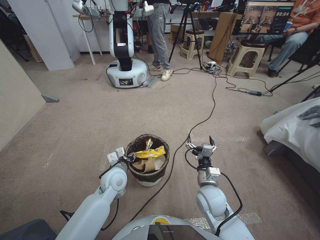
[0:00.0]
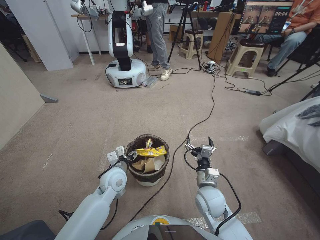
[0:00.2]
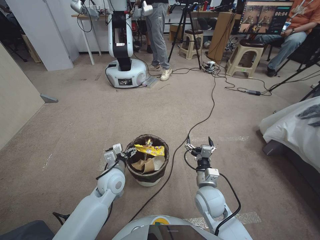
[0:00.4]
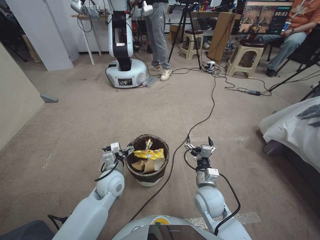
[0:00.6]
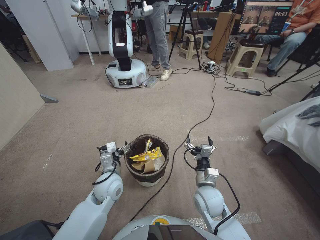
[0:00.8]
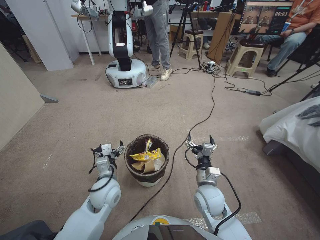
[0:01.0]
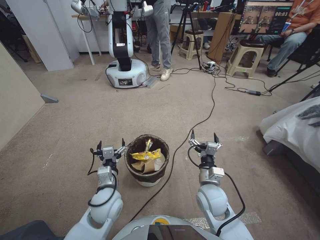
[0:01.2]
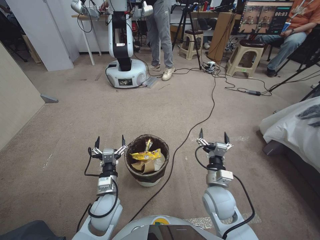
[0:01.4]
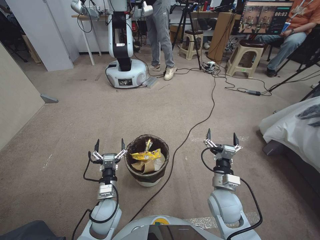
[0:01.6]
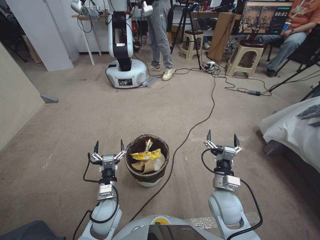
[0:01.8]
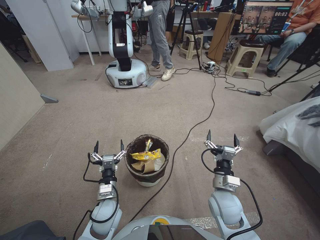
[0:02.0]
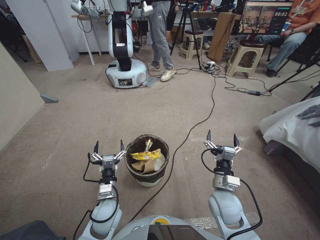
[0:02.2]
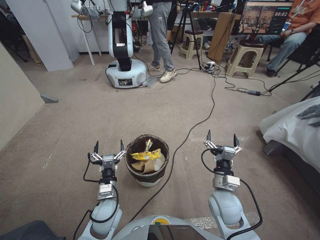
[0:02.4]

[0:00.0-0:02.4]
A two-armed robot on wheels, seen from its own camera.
Task of the whole recording: Pick up the trash bin, then pick up the garbage from the floor and place it into the trash bin.
0:00.0 to 0:01.2: The left gripper goes approximately 5 cm backward, and opens up.
0:01.2 to 0:02.4: The left gripper travels downward by approximately 5 cm.

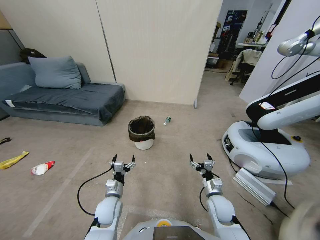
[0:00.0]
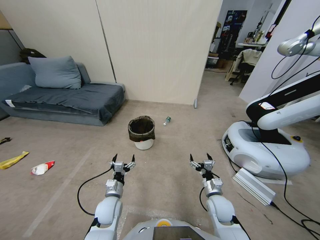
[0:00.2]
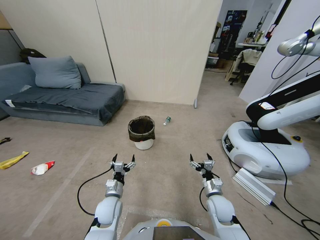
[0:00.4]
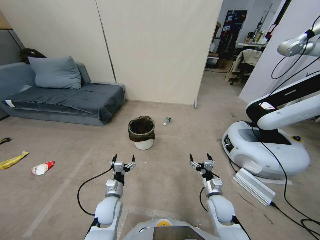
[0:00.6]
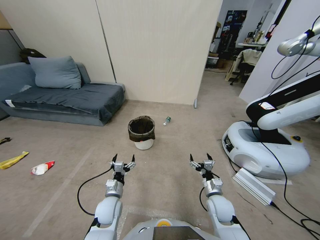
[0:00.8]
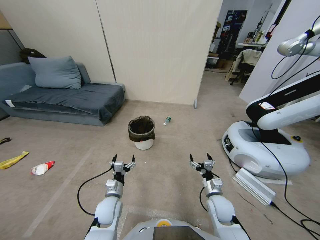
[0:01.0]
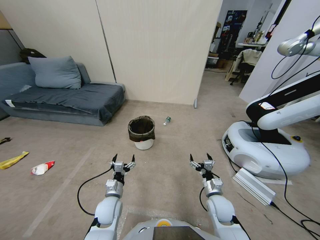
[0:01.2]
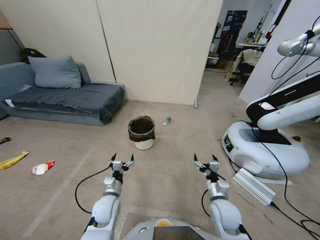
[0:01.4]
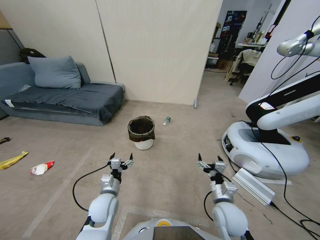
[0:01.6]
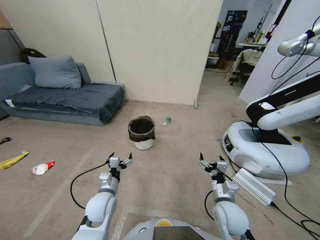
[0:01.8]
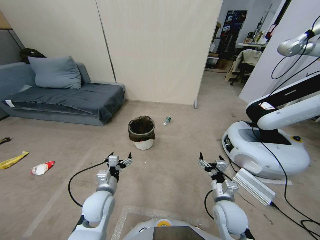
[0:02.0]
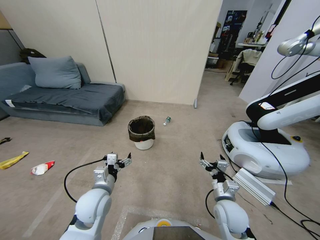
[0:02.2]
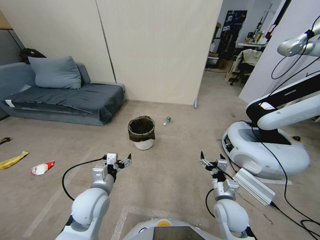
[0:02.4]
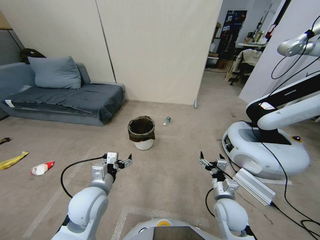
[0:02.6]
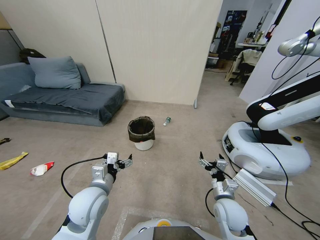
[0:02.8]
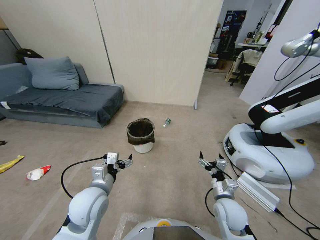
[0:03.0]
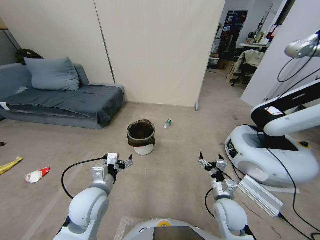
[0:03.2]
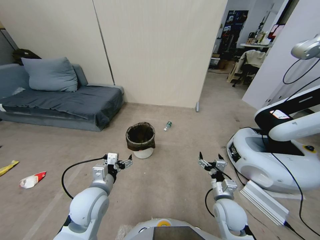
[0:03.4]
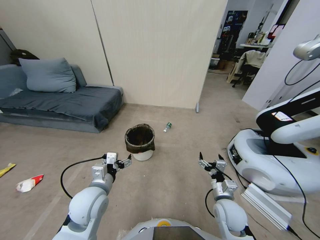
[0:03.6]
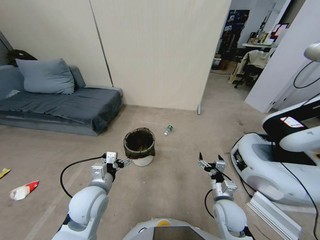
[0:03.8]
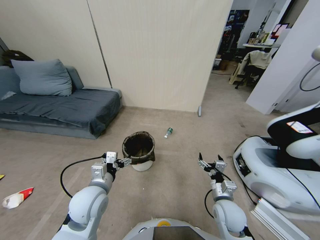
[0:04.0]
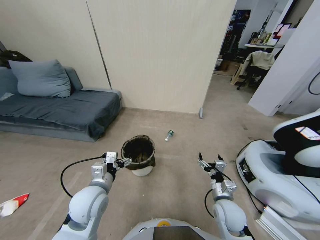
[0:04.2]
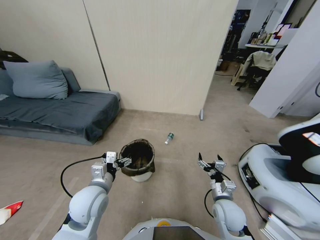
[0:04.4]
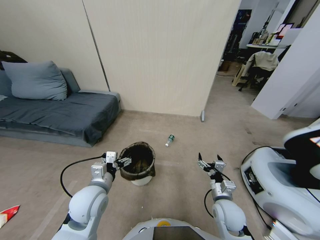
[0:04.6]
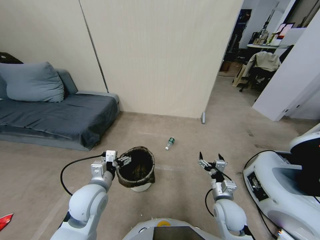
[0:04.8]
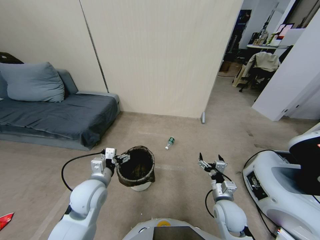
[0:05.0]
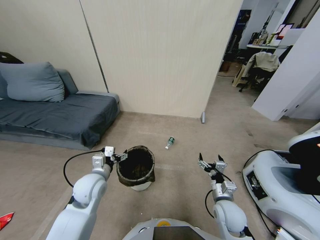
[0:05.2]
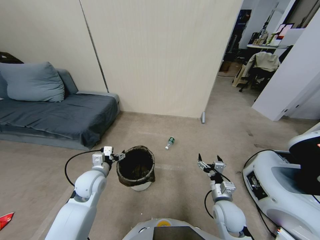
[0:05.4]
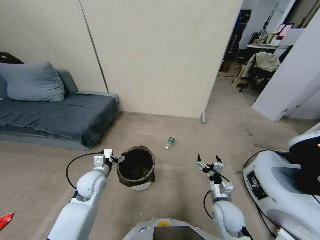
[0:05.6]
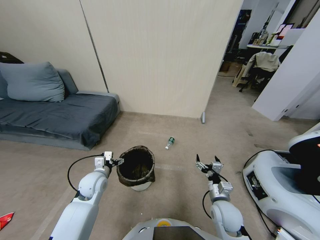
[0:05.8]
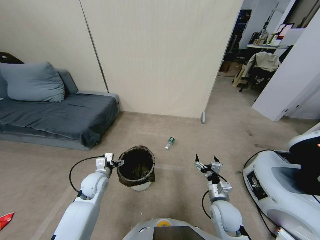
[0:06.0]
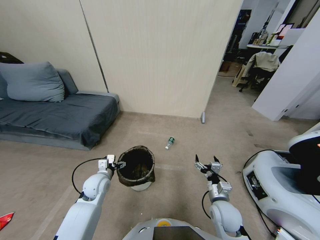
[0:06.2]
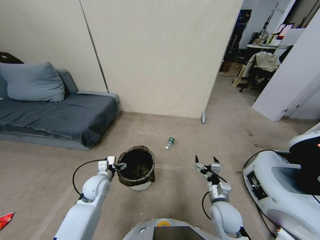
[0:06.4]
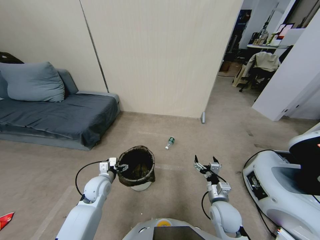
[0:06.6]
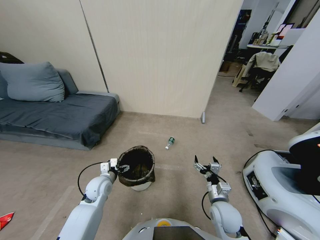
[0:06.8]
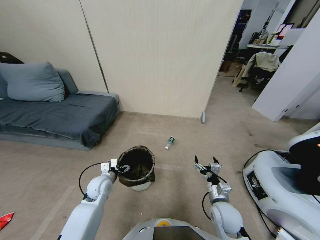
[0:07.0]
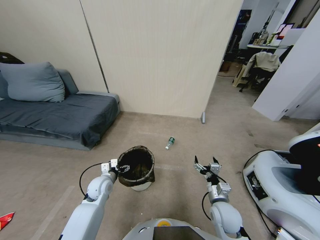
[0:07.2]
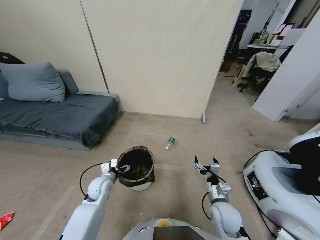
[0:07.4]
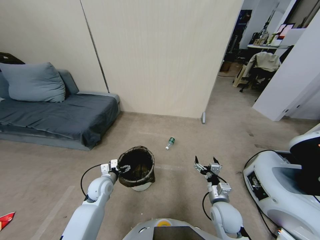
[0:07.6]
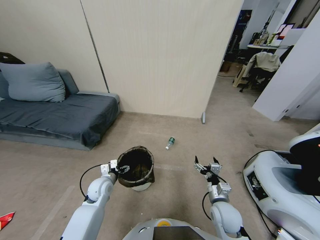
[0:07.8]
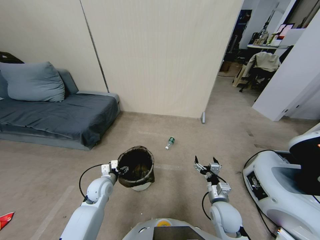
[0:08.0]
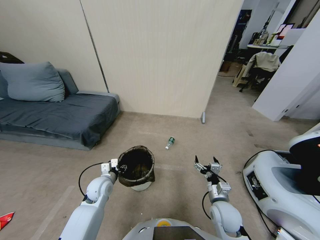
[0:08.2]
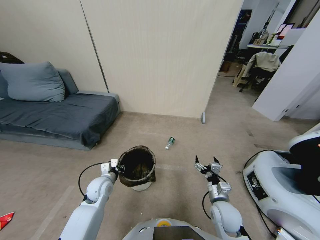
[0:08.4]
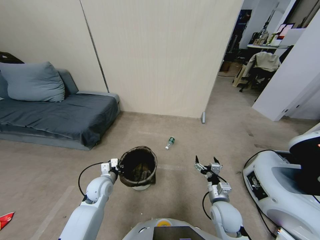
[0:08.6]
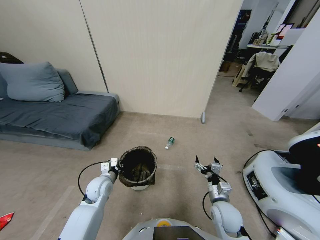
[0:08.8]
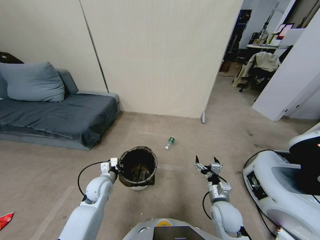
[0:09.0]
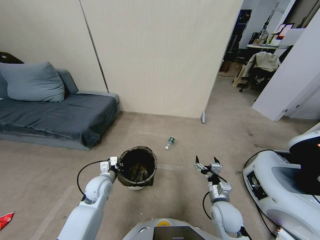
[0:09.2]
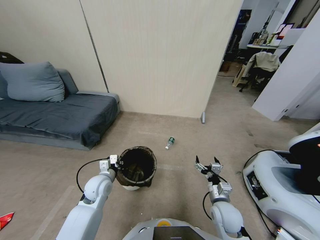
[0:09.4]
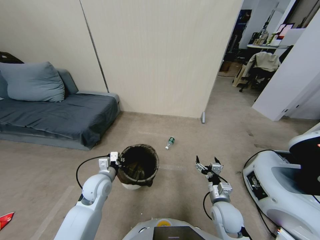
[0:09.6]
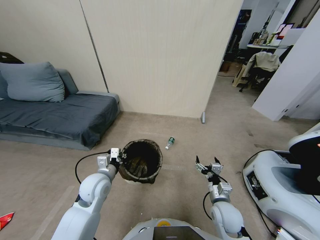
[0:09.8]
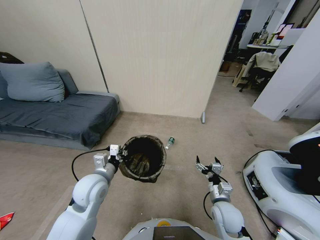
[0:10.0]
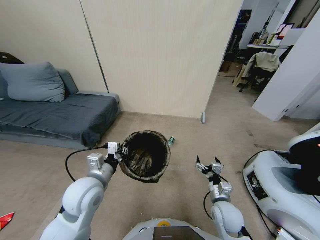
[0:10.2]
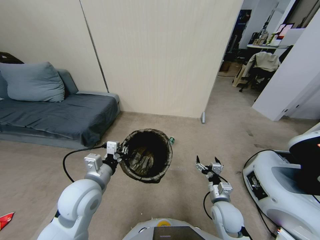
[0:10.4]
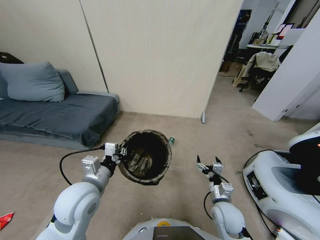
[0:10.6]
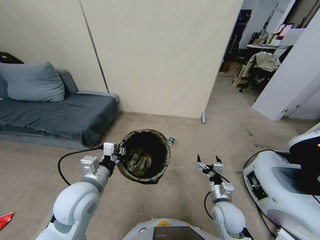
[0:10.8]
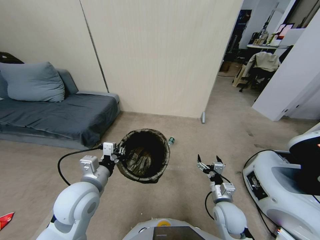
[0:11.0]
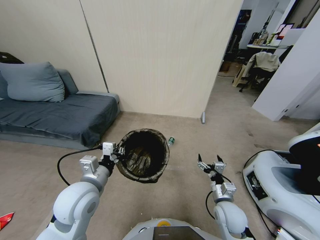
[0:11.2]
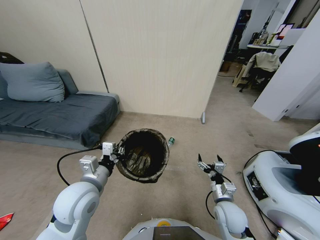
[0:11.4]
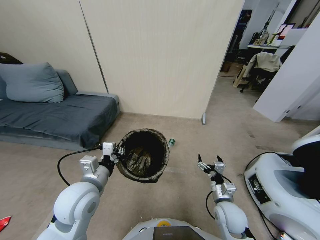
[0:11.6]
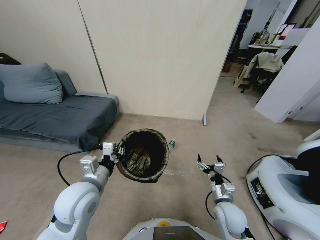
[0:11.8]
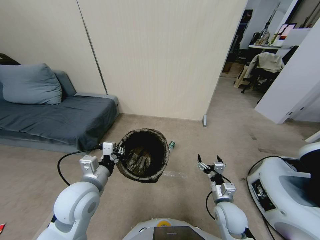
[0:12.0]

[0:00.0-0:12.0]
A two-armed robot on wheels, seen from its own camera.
Task of the whole recording: Pick up the trash bin, then pick up the garbage from the floor and place it into the trash bin.
0:01.6 to 0:03.0: The left gripper is displaced upward by some 10 cm.
0:04.4 to 0:06.0: The left gripper travels downward, forward and to the left by roughly 15 cm.
0:06.0 to 0:07.6: The grippers make only small movements.
0:07.6 to 0:09.0: The left gripper closes its fingers.
0:09.0 to 0:10.4: The left gripper is displaced upward and backward by approximately 20 cm.
0:10.4 to 0:12.0: The two grippers keep their place.

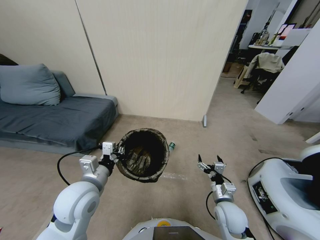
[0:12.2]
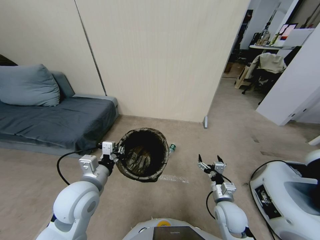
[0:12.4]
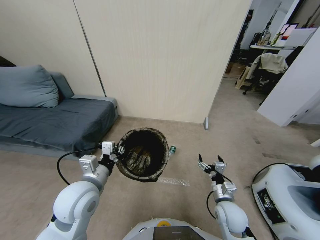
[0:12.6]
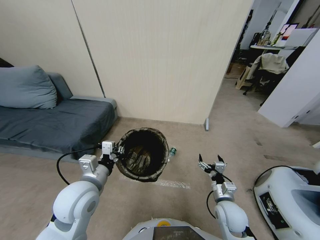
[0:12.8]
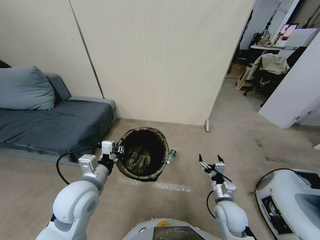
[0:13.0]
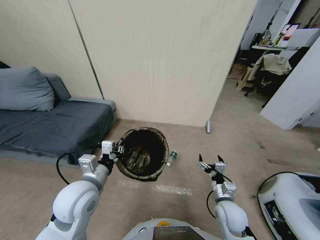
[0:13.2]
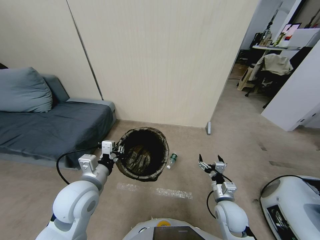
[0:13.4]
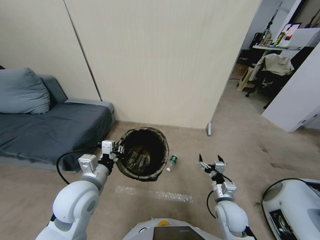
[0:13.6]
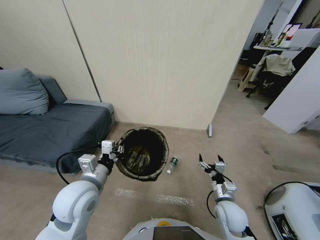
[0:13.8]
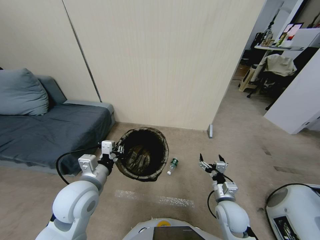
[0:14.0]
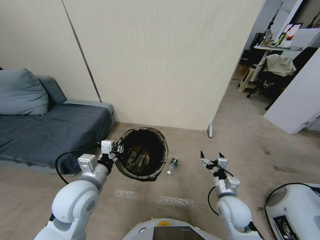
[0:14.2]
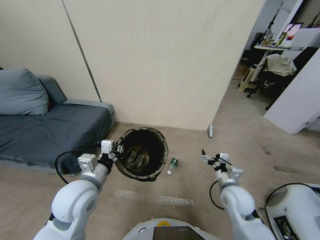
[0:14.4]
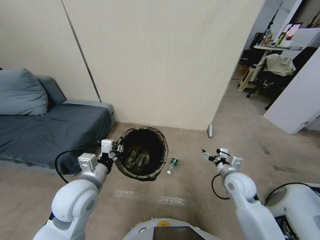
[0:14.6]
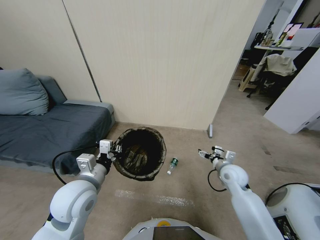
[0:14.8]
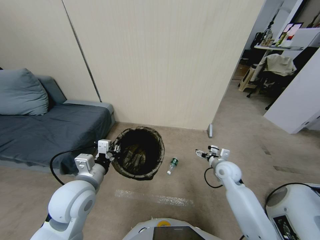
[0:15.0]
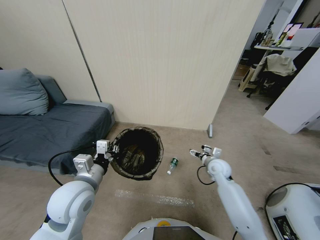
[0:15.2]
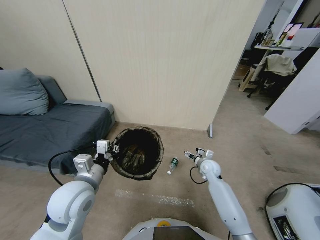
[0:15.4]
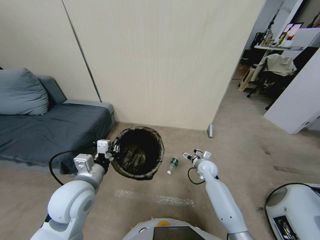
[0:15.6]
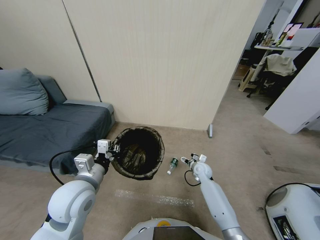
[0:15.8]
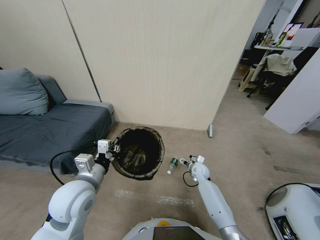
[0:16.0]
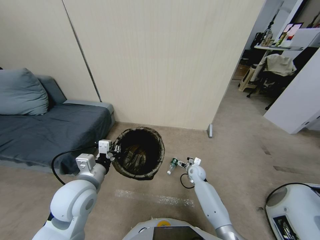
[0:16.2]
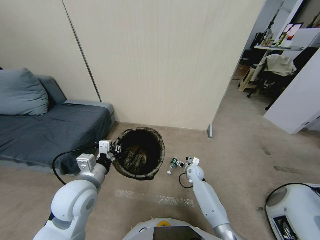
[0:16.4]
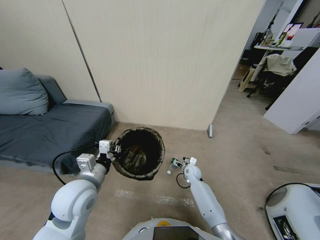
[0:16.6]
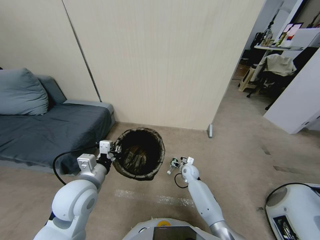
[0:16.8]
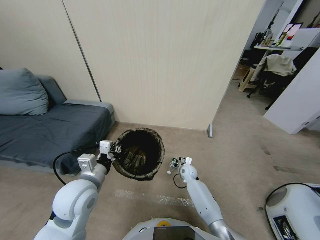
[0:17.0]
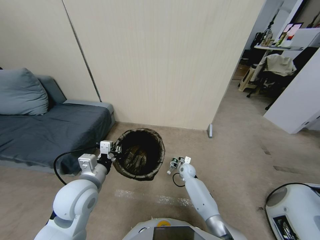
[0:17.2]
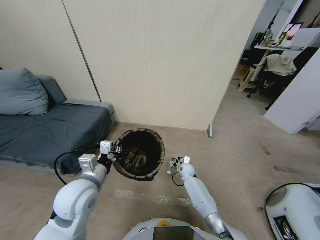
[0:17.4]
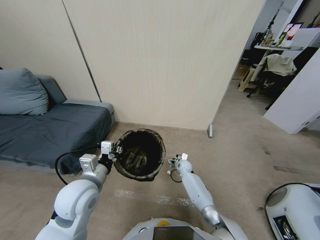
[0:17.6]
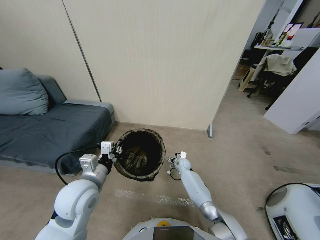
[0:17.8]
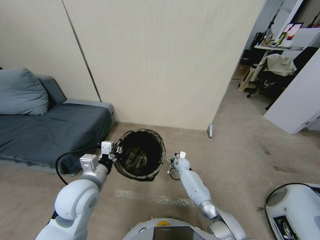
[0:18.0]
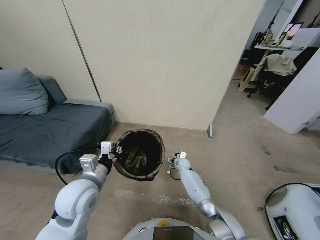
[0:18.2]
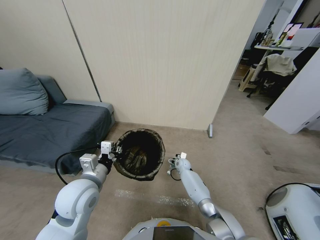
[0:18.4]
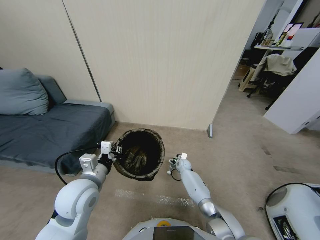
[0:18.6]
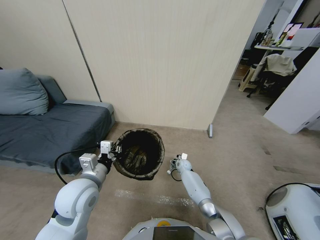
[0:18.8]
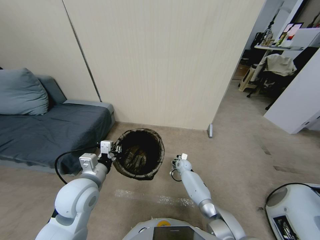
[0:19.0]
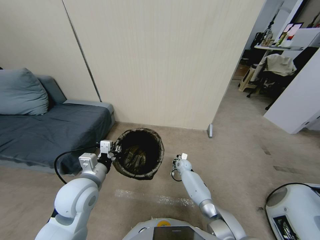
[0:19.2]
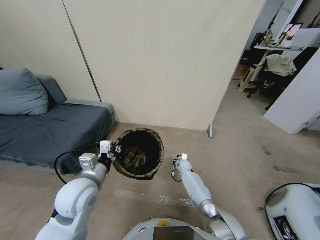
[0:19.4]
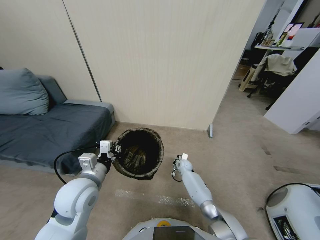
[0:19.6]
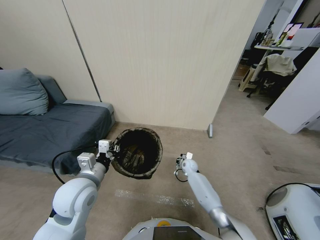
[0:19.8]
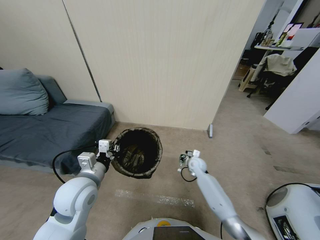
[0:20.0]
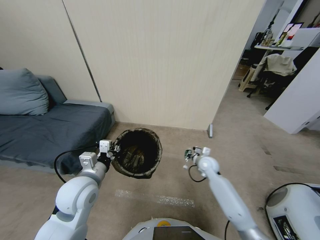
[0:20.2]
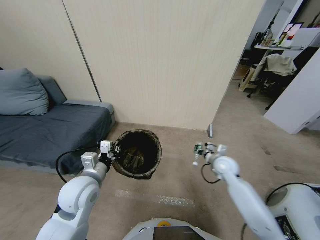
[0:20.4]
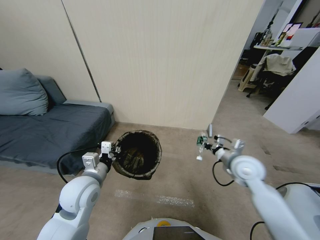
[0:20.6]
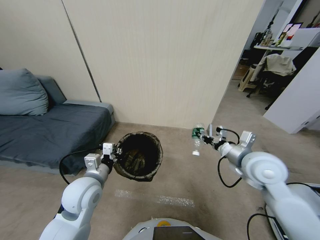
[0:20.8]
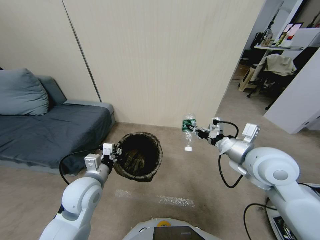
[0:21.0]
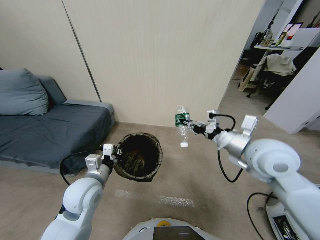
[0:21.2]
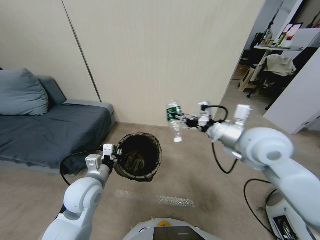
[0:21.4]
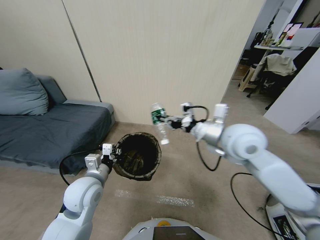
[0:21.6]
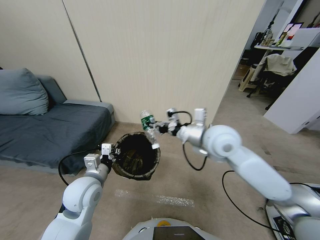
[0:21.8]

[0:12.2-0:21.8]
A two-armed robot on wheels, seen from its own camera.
Task of the whole recording: Pick up the trash bin, then pick up the garbage from the floor and place it into the trash bin.
0:13.8 to 0:15.4: The right gripper heads forward, covering some 20 cm.
0:15.4 to 0:17.0: The right gripper moves downward and to the left, about 10 cm.
0:17.0 to 0:18.6: The right gripper is displaced forward by about 5 cm.
0:18.6 to 0:20.2: The right gripper goes about 25 cm upward, to the right and backward, and closes.
0:20.2 to 0:21.8: The right gripper travels upward and to the left by about 25 cm.
